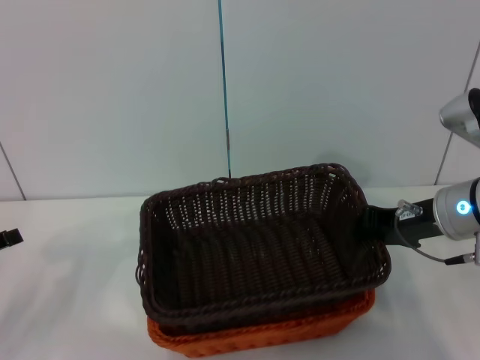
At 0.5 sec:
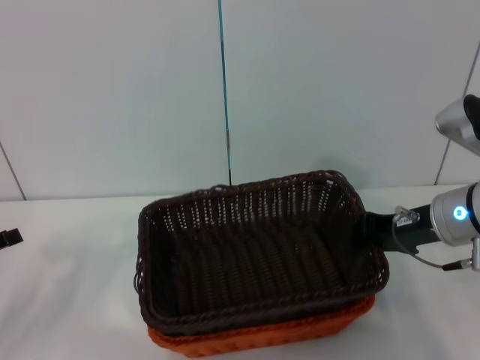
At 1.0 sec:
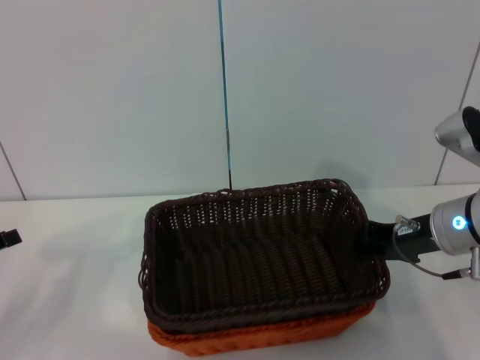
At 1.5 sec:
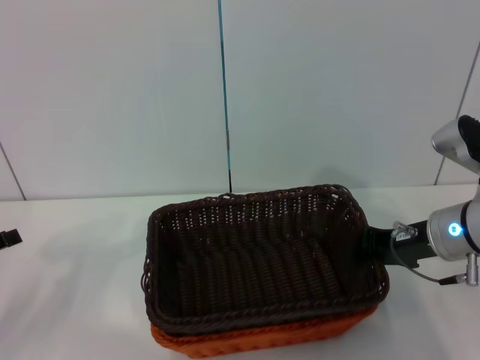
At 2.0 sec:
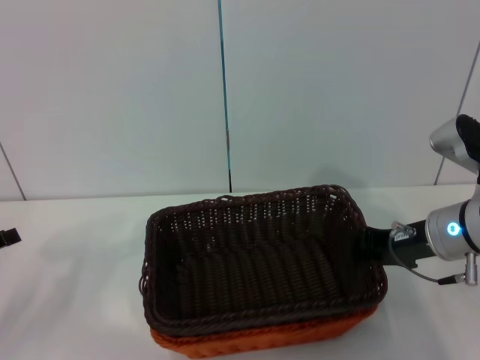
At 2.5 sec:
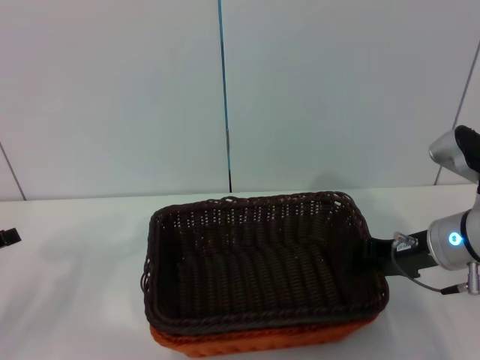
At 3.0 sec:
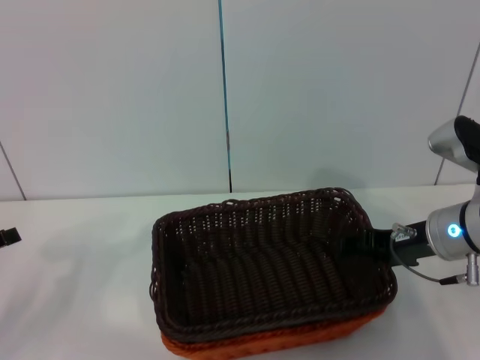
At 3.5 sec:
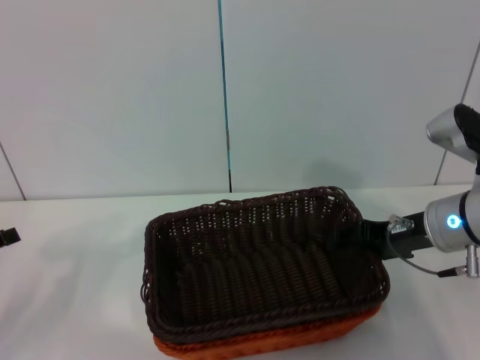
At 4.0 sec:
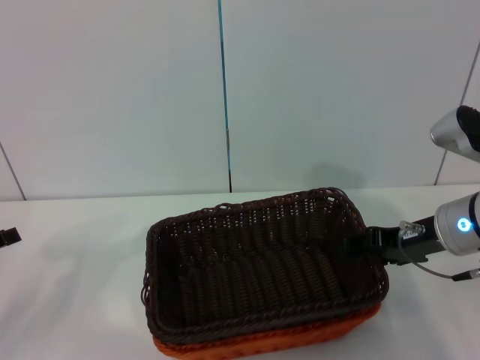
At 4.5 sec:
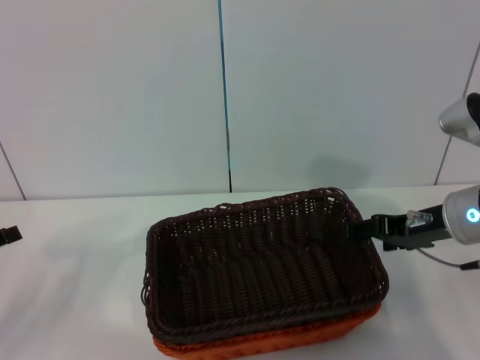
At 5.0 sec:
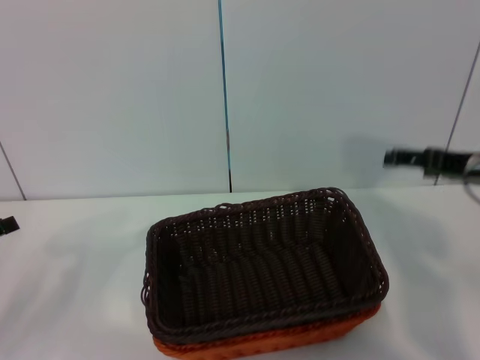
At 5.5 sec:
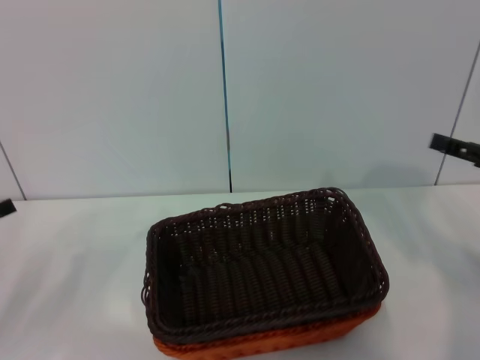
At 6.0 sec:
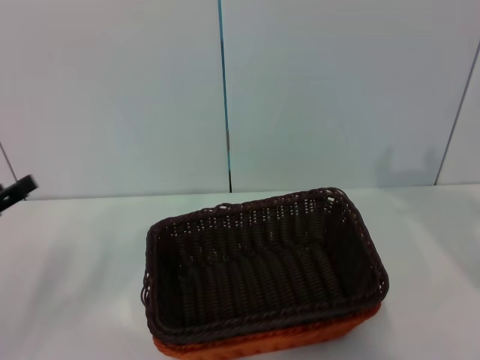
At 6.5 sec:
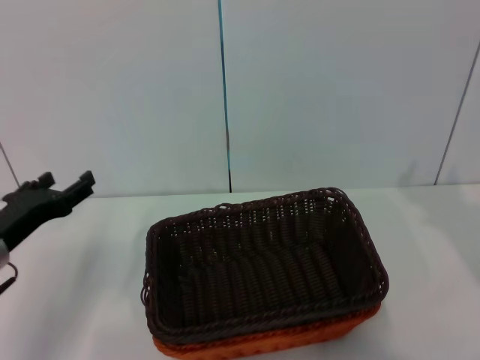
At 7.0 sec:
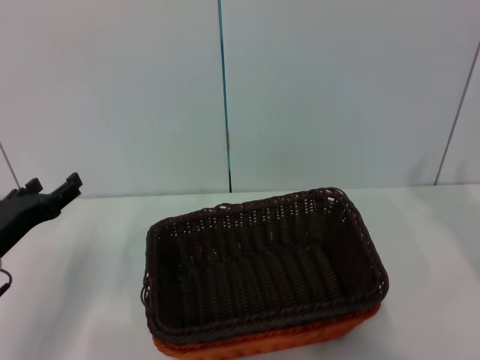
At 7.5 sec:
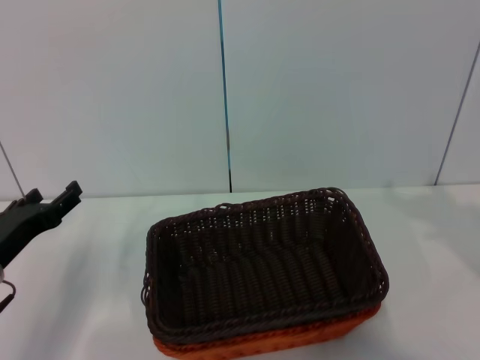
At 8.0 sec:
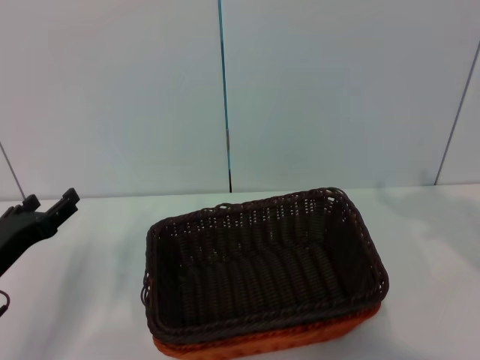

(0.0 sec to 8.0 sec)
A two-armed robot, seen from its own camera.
Step, 0.0 sec - 4.5 sec: Place the dark basket on the light basket with the right gripper.
0.0 sec - 2.0 sec: The grippers make only small movements.
2.0 sec - 4.0 sec: The right gripper opens its fingers.
4.0 sec - 6.0 sec: The right gripper moves to the right, some 15 cm.
6.0 sec - 8.0 sec: The left gripper shifts roughly 5 cm to the right.
